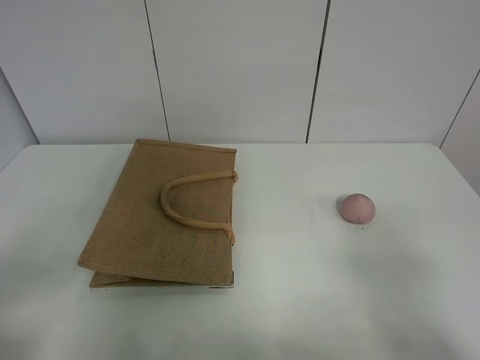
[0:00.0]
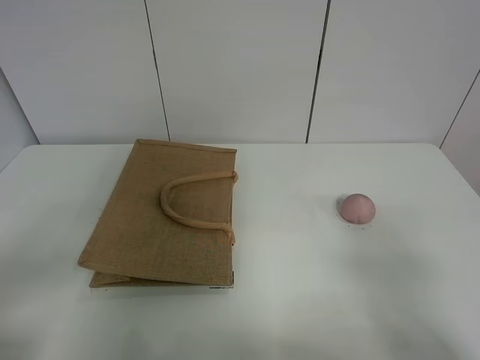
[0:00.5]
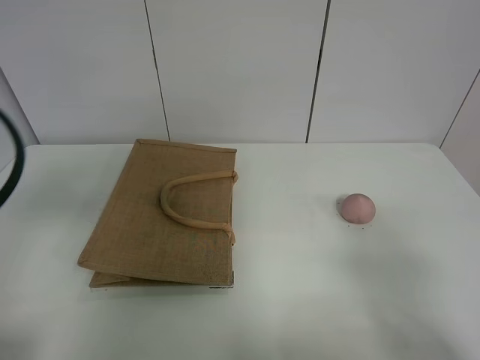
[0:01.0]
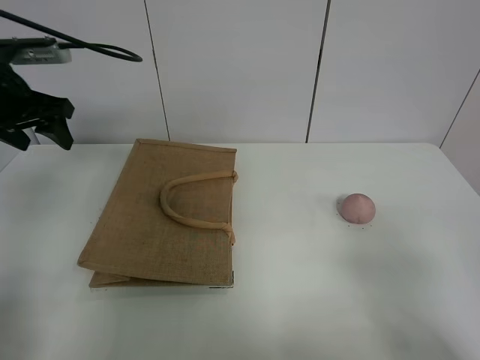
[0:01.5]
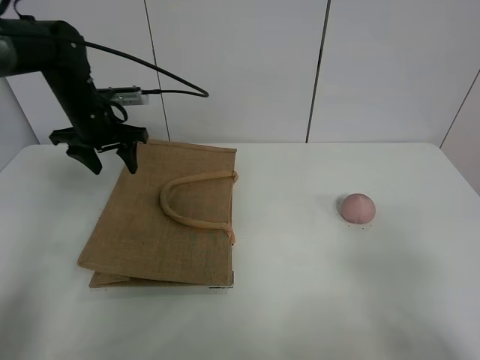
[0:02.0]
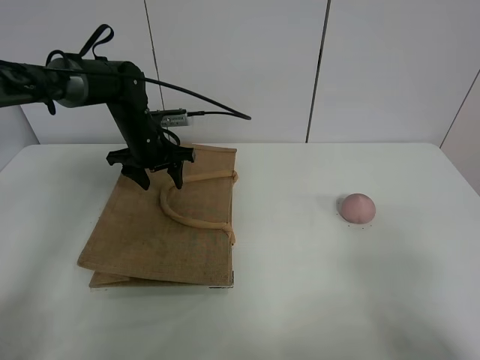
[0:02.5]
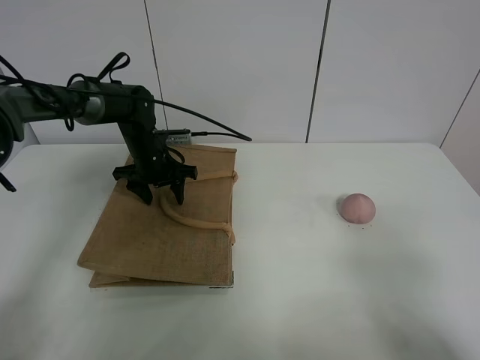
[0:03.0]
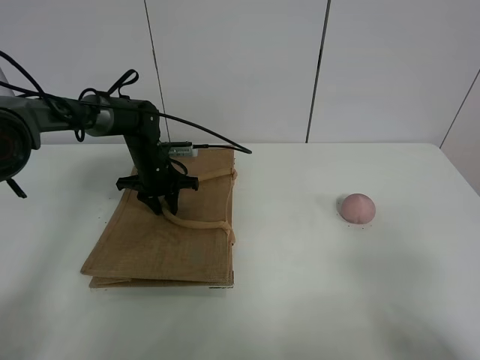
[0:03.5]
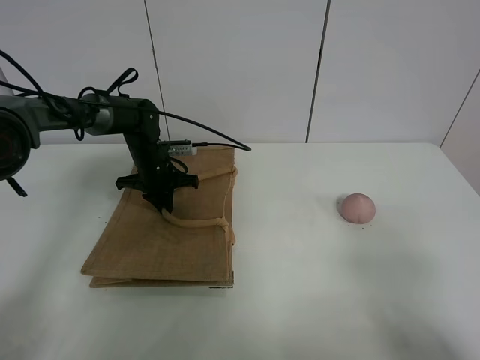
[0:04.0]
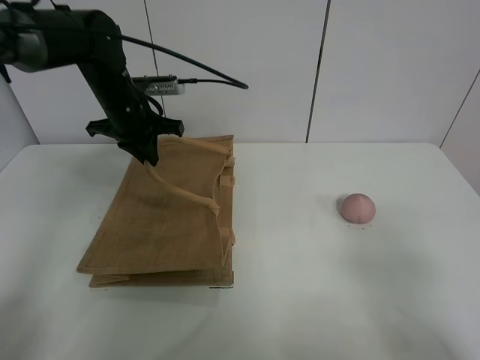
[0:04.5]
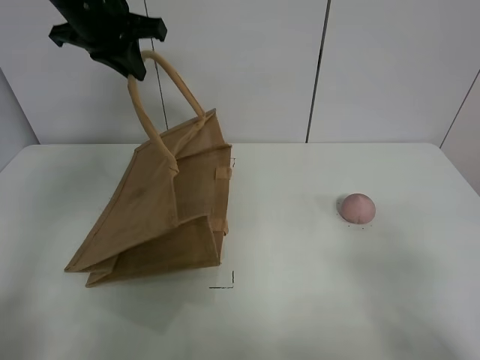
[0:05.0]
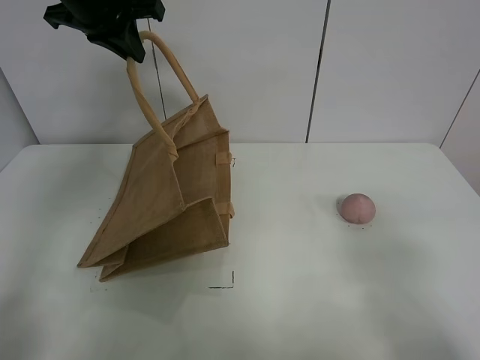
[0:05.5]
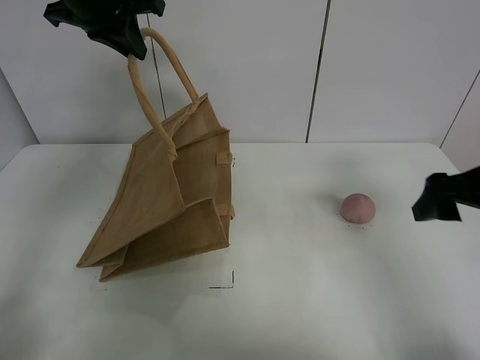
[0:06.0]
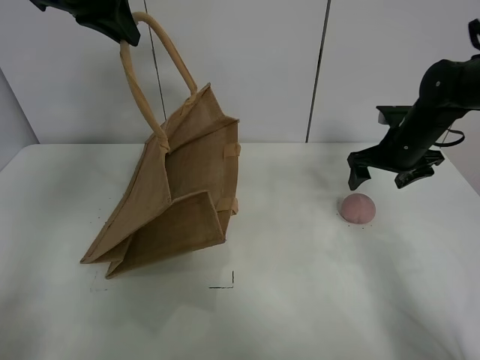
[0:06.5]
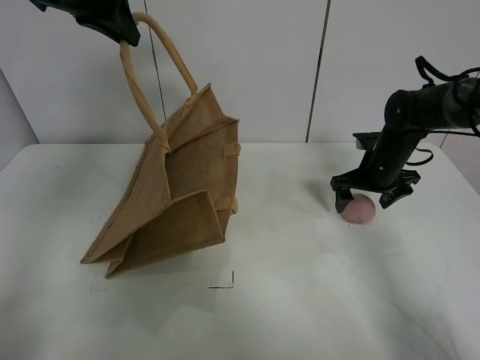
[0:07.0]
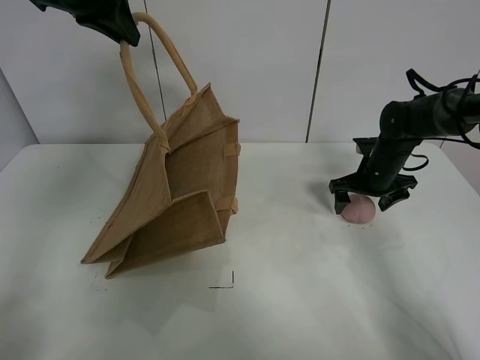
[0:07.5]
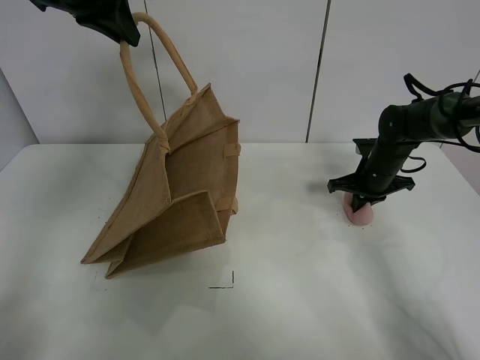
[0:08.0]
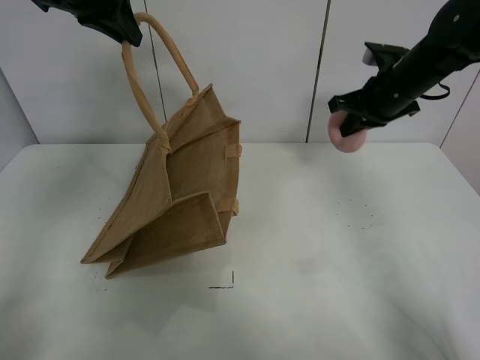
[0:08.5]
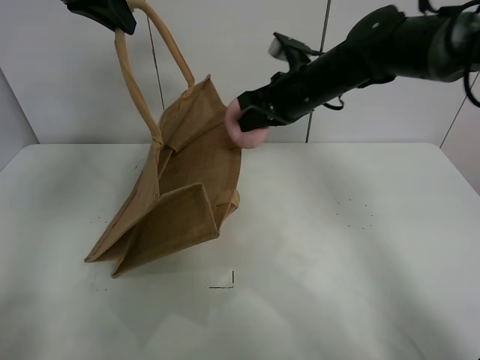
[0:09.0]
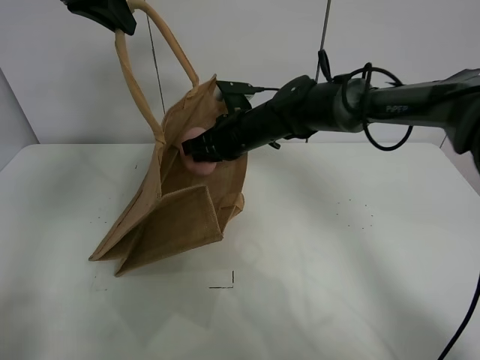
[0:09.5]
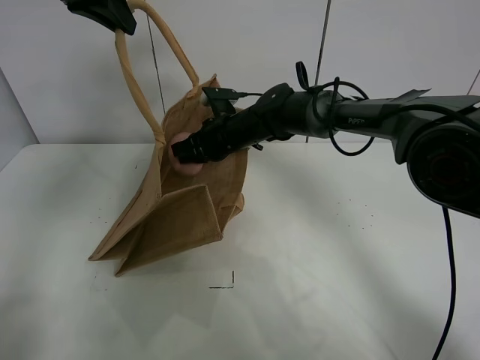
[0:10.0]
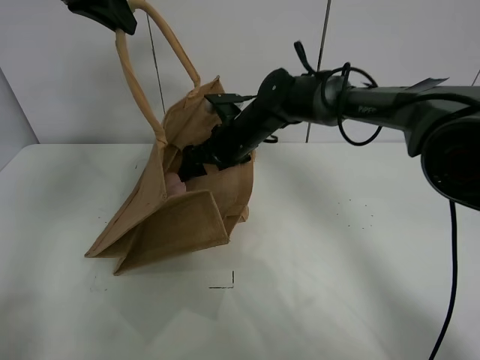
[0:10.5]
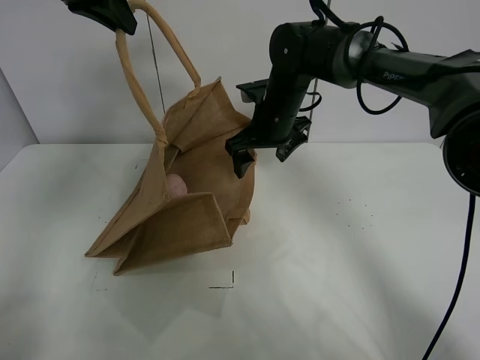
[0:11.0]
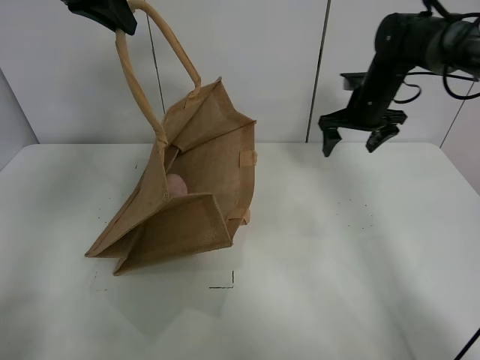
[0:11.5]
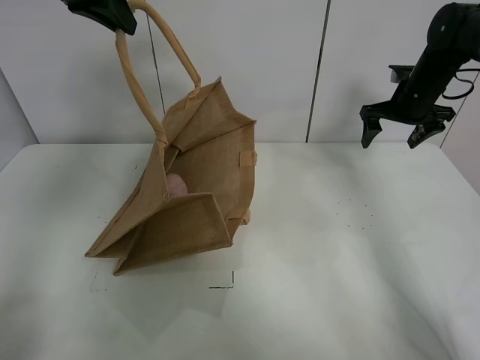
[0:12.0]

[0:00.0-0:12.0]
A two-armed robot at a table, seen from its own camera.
Task of the whole recording: open the brown linen bag and put the peach in the bag.
Step, 0:00.0 to 0:05.0: Lift the handbag with left gripper.
Step, 0:05.5 to 0:08.0: Grasp the peach with right gripper.
Step, 0:08.5 to 0:11.0: Place the peach in the handbag with right gripper.
0:00.0 to 0:02.0: The left gripper travels forward by about 40 cm.
0:02.0 to 0:04.0: The left gripper is displaced downward and to the right by about 15 cm, and closes.
0:04.0 to 0:06.0: The right gripper is displaced forward by roughly 25 cm. The left gripper goes approximately 30 cm upward.
0:06.0 to 0:08.0: The right gripper shifts approximately 25 cm forward and downward, and closes up.
0:08.0 to 0:10.0: The right gripper heads to the left, covering approximately 25 cm.
0:10.0 to 0:12.0: The right gripper heads to the right, covering roughly 30 cm, and opens up.

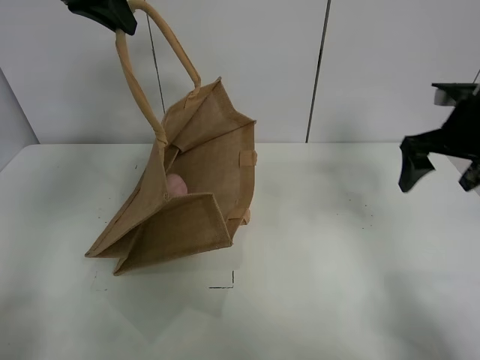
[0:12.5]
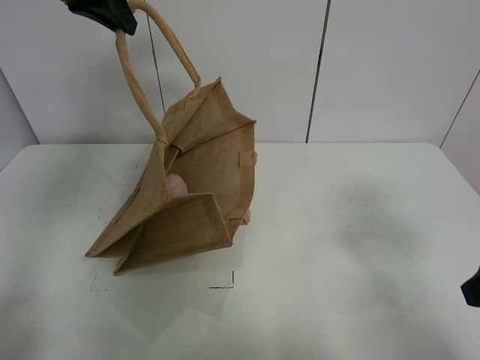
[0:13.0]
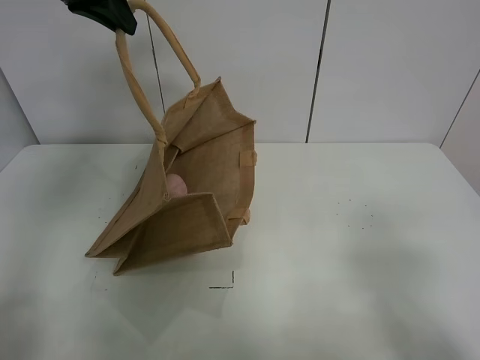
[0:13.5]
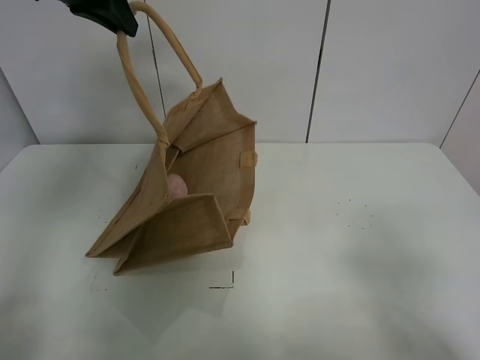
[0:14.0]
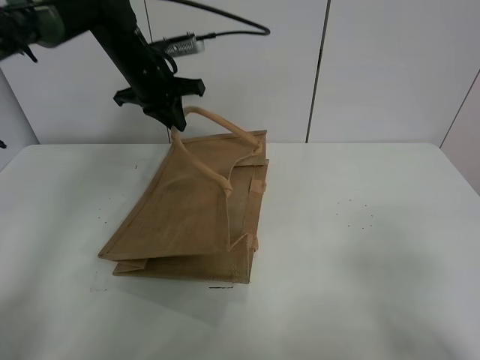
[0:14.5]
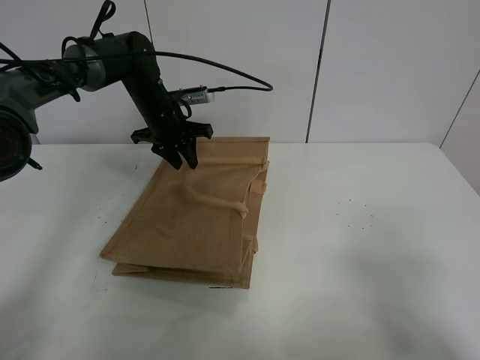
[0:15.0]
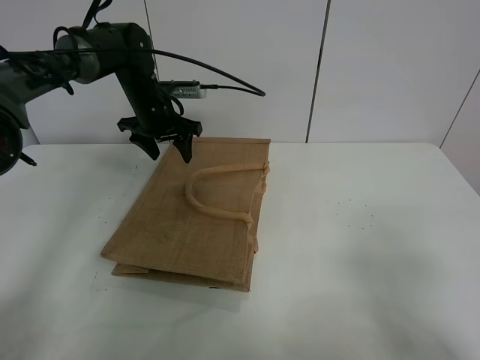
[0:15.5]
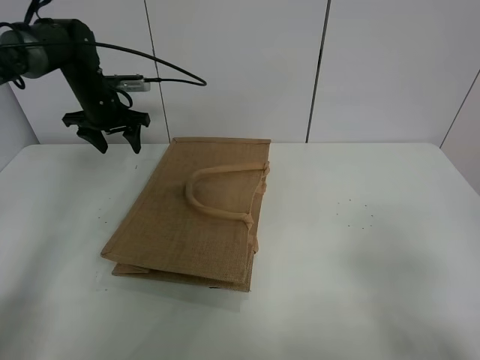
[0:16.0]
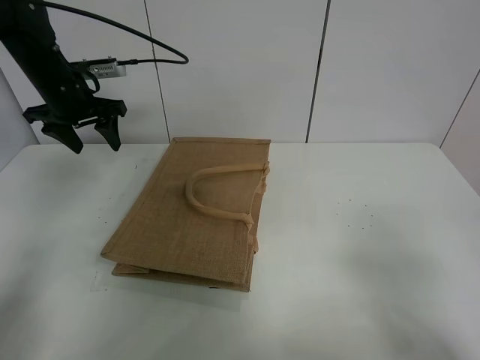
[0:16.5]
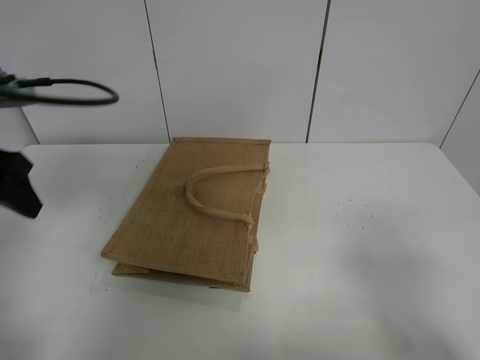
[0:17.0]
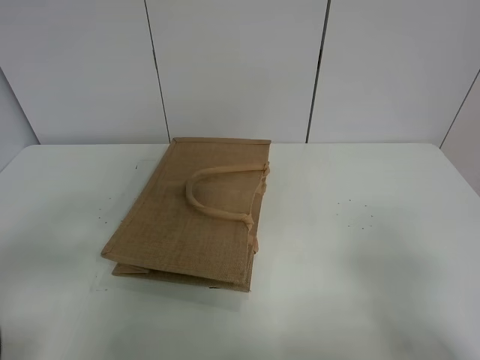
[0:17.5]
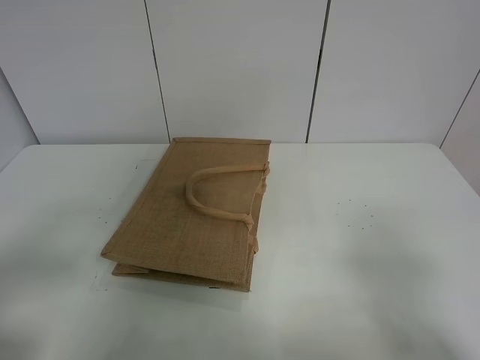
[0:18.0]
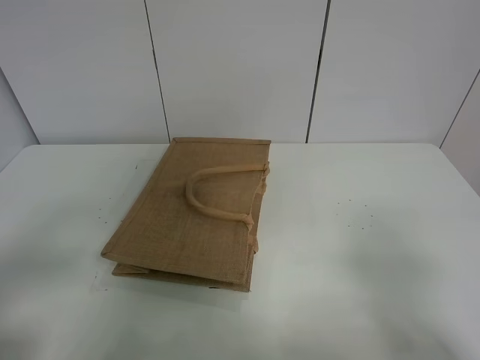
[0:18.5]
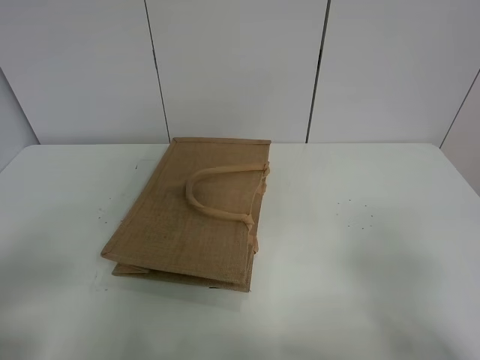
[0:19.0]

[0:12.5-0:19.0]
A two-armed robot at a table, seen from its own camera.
Task of the whole recording: open the brown linen bag and put the peach in the bag.
Step, 0:12.5 to 0:15.5: Put down the handbag with left grippe.
0:12.5 to 0:14.5: The left gripper travels downward and forward by some 20 cm. The right gripper moves backward, approximately 30 cm.
0:14.5 to 0:17.0: The left gripper is displaced backward and to the left by about 30 cm, and opens up.
0:17.0 to 0:19.0: The left gripper shifts about 20 cm backward.
